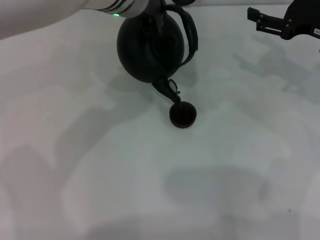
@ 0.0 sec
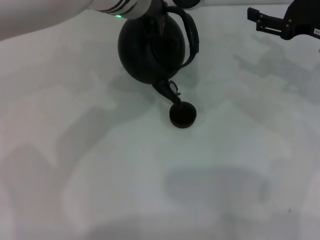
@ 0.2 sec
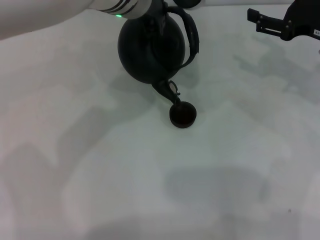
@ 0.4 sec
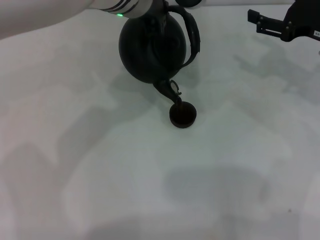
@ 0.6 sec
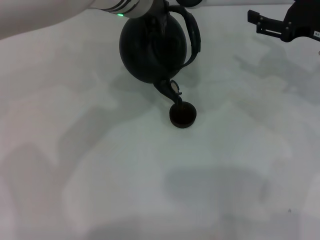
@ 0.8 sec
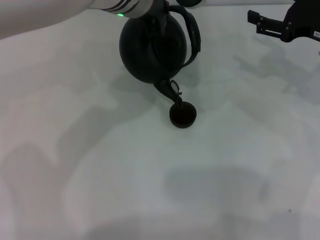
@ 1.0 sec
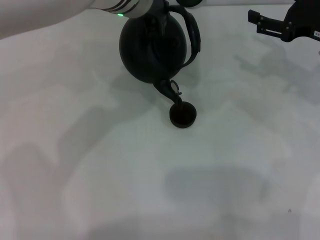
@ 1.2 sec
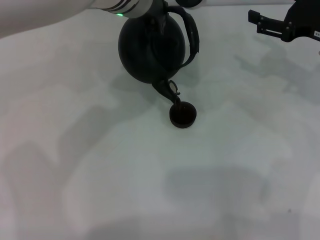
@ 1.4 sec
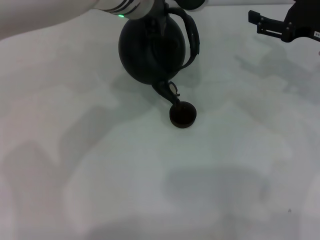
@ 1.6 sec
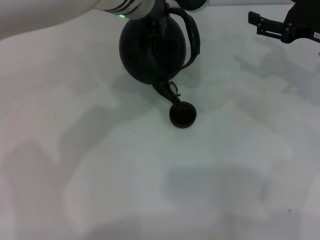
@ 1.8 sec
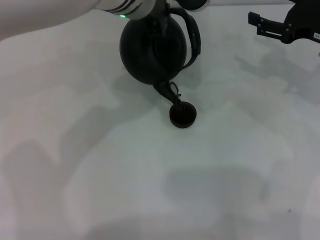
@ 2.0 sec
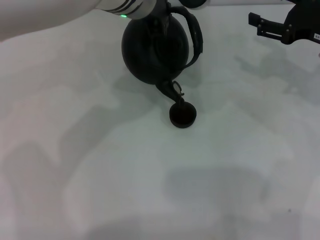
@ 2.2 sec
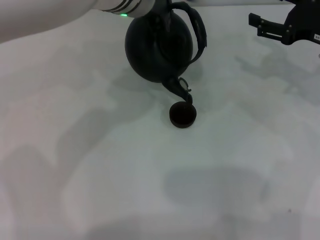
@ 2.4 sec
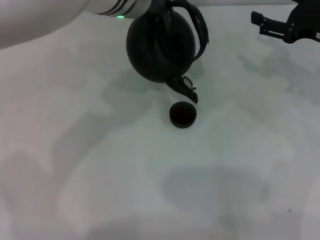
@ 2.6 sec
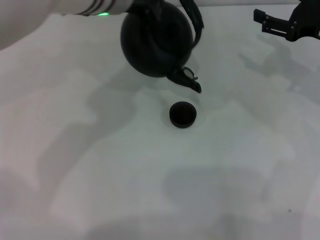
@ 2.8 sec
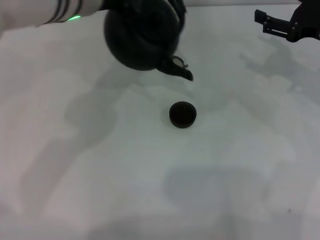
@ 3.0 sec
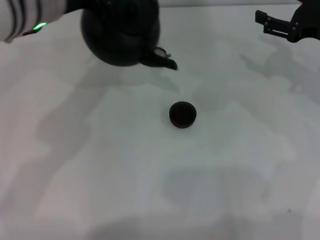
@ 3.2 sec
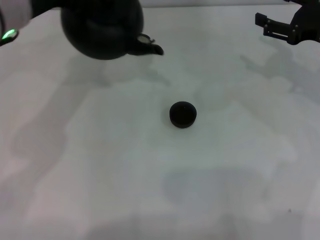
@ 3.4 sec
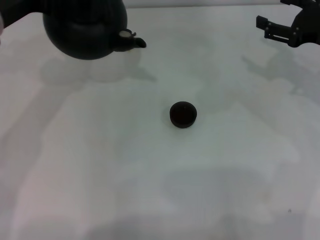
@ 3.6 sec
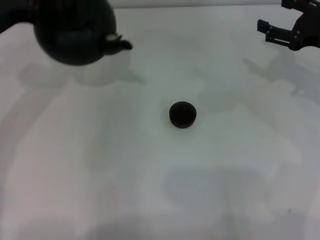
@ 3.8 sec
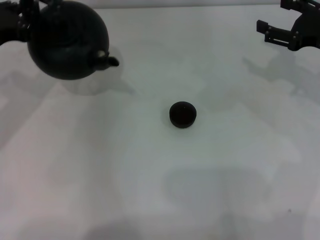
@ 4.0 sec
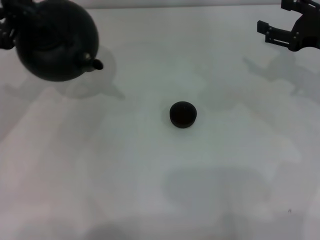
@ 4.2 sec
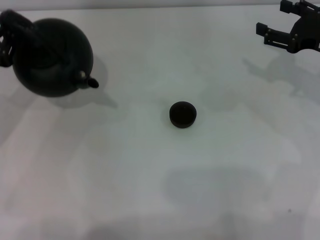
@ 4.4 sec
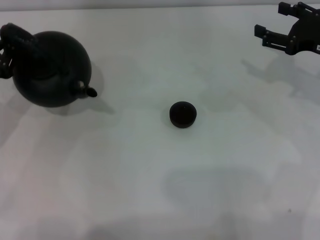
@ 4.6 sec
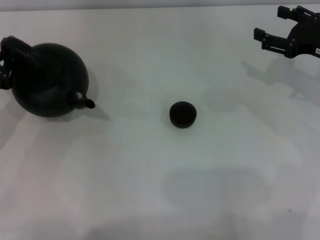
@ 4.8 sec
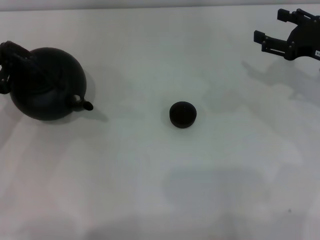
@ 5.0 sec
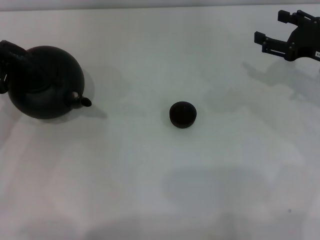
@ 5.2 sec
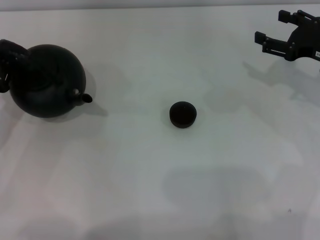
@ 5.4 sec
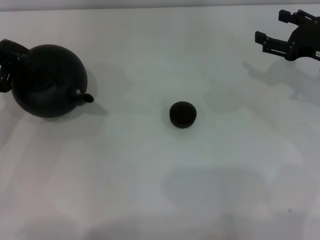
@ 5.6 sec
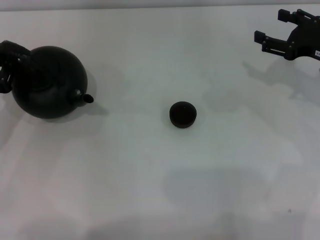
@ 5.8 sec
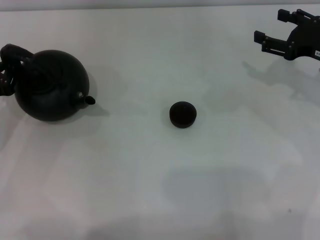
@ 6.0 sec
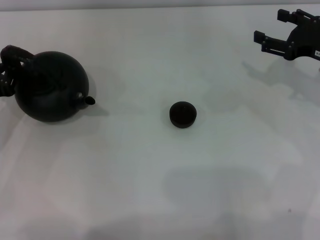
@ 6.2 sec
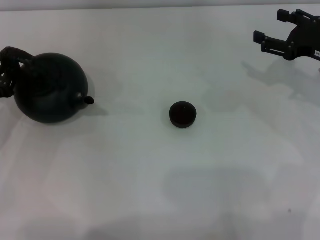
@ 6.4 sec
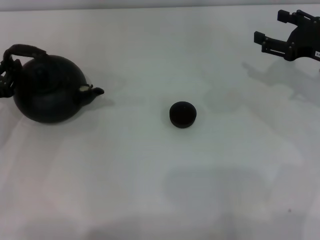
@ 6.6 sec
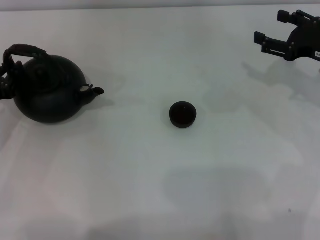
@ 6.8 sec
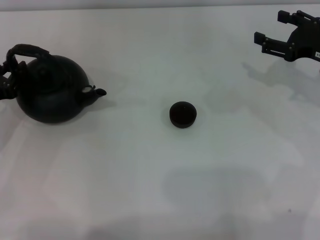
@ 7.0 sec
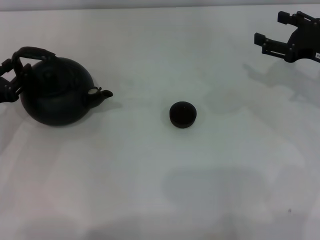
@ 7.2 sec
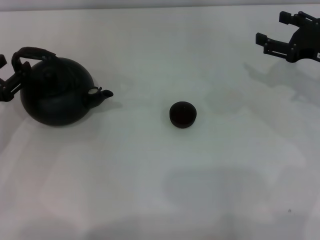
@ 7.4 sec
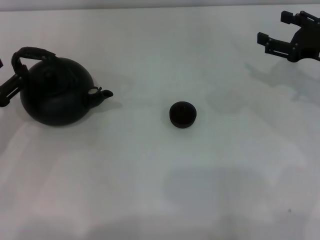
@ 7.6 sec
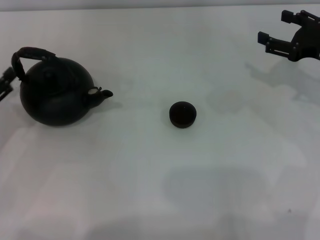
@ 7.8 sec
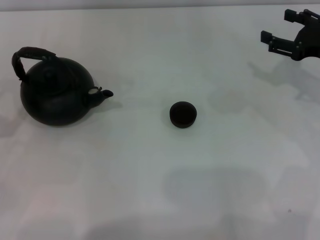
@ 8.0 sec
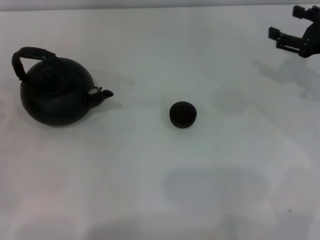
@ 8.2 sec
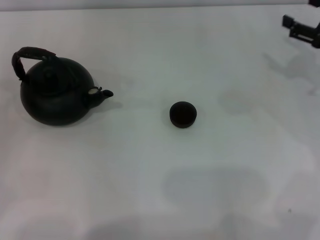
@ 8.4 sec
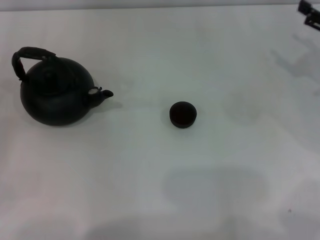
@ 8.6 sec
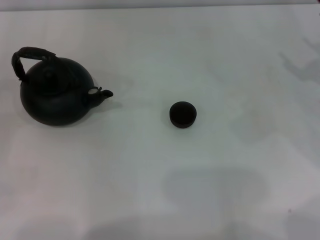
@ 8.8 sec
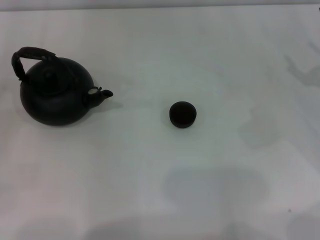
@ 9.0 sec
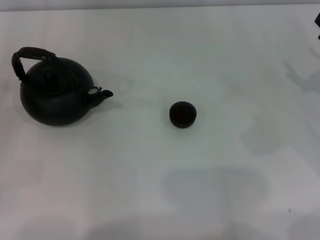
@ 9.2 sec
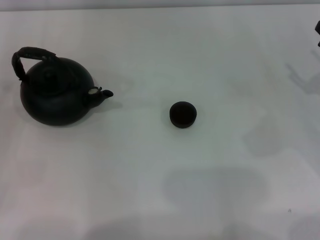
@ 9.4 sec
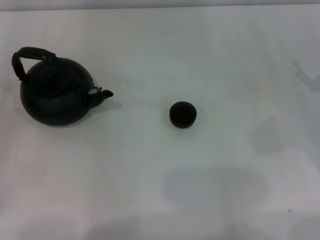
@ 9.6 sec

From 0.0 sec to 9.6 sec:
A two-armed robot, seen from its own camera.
Task of the whole recording: Grasp the handle of the teapot with one hand and pour tea into the teacup.
Step, from 0.0 sec to 3.0 sec: Pour tea into the teacup with the left gripper.
Step, from 3.2 sec to 8.0 sec: Put down the teapot with the left gripper.
From 0.0 sec to 1.6 sec: Neither gripper changes place.
From 1.6 sec to 3.2 sec: The left gripper heads to the left, covering about 10 cm.
From 3.2 sec to 4.8 sec: The left gripper is displaced to the left, downward and backward by some 25 cm.
From 4.8 sec to 6.4 sec: There are only small adjustments of the grippers.
From 6.4 sec to 8.0 sec: The left gripper travels backward by approximately 10 cm, and opens its fingers.
From 8.0 sec to 9.6 sec: The right gripper moves backward, about 5 cm.

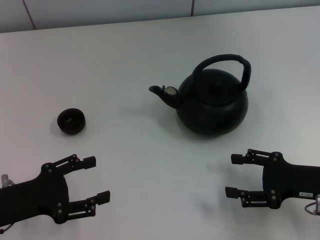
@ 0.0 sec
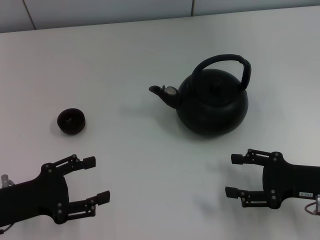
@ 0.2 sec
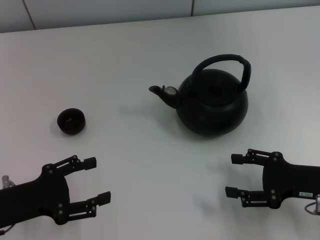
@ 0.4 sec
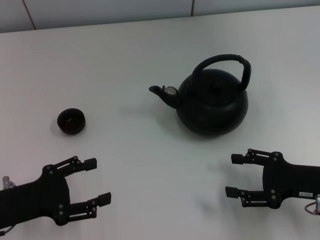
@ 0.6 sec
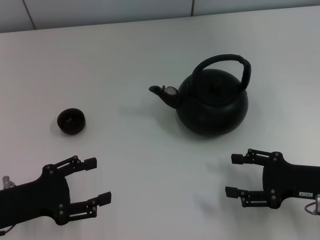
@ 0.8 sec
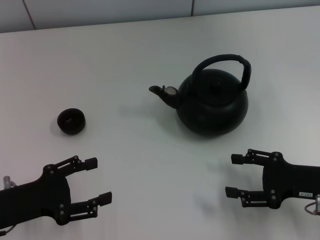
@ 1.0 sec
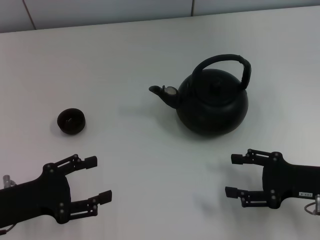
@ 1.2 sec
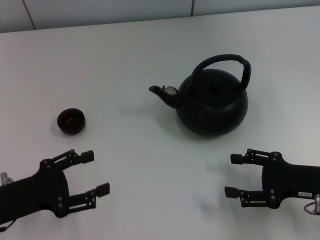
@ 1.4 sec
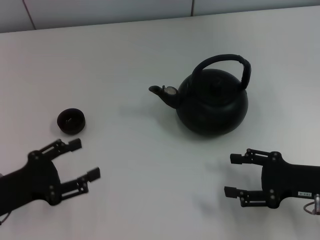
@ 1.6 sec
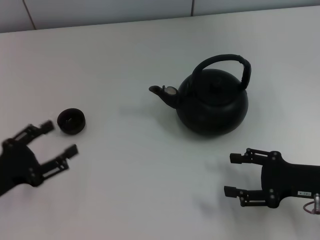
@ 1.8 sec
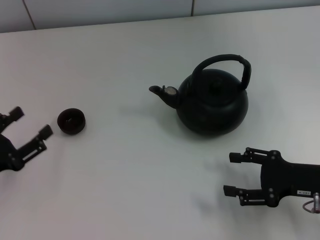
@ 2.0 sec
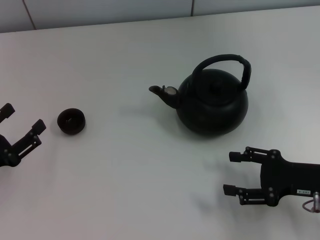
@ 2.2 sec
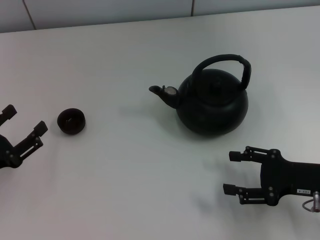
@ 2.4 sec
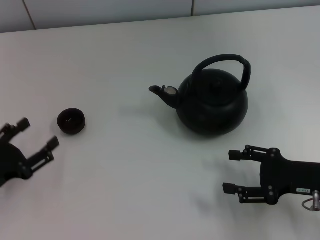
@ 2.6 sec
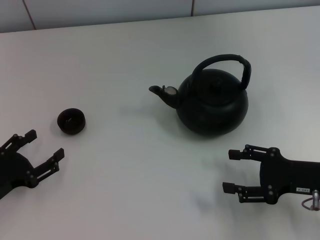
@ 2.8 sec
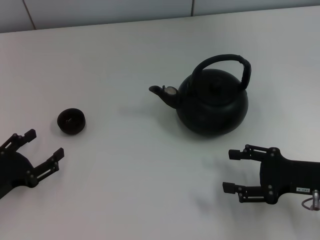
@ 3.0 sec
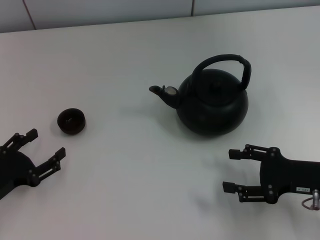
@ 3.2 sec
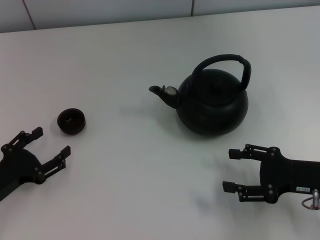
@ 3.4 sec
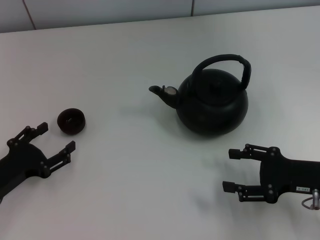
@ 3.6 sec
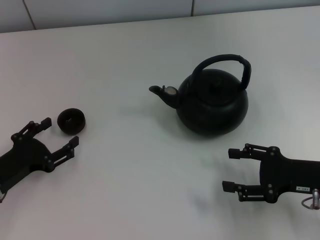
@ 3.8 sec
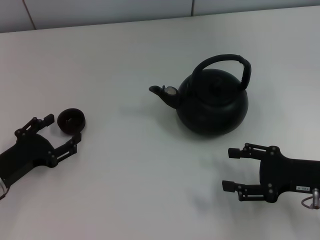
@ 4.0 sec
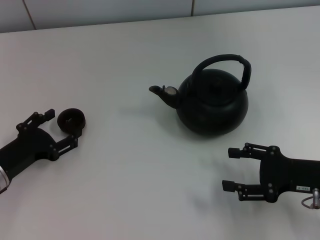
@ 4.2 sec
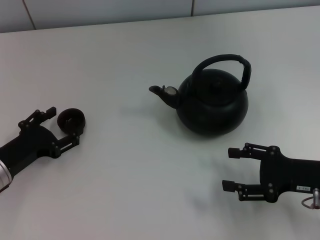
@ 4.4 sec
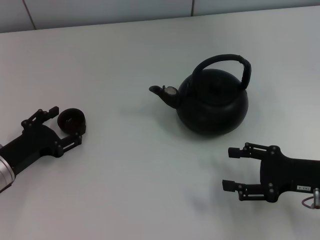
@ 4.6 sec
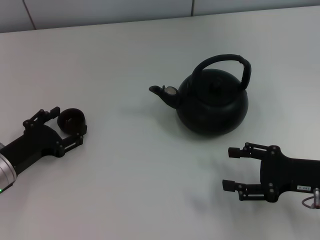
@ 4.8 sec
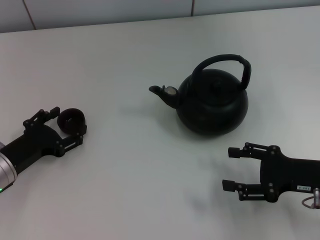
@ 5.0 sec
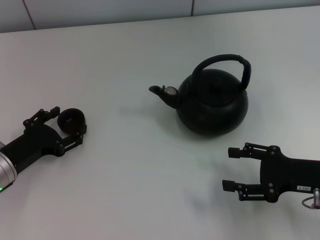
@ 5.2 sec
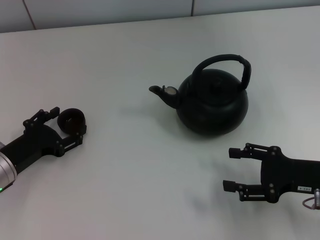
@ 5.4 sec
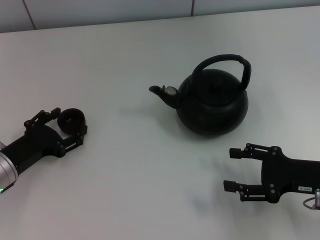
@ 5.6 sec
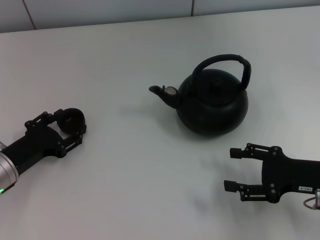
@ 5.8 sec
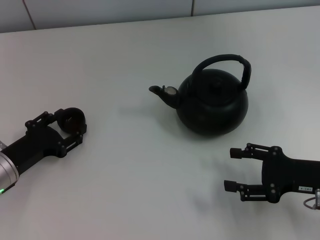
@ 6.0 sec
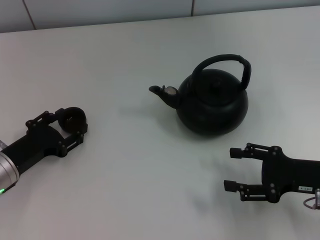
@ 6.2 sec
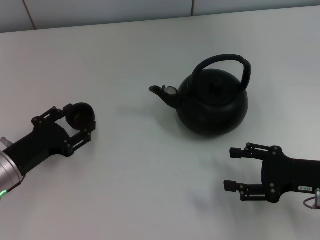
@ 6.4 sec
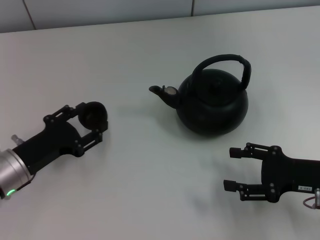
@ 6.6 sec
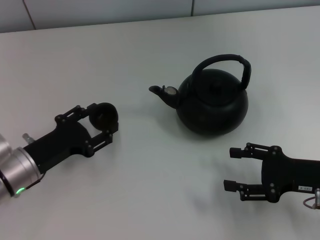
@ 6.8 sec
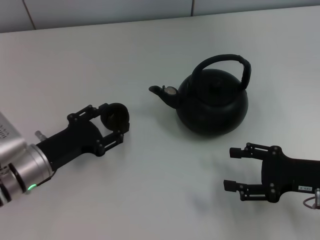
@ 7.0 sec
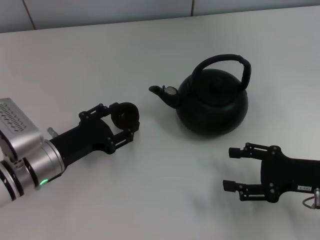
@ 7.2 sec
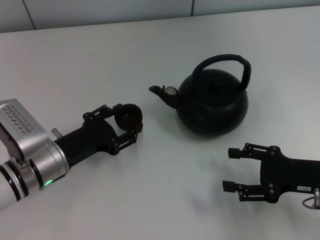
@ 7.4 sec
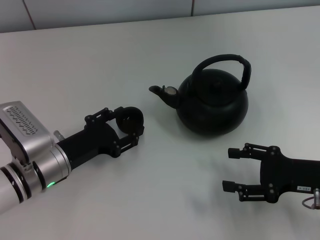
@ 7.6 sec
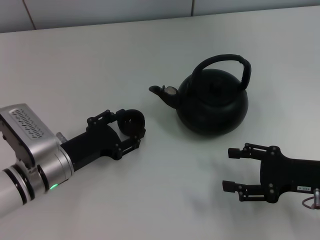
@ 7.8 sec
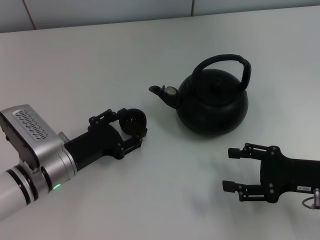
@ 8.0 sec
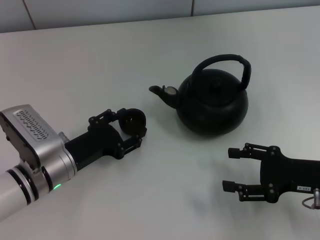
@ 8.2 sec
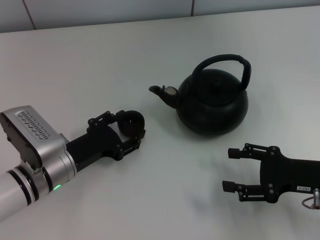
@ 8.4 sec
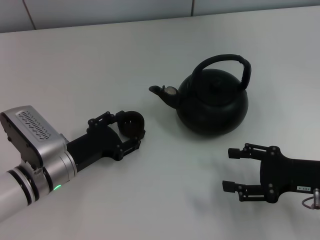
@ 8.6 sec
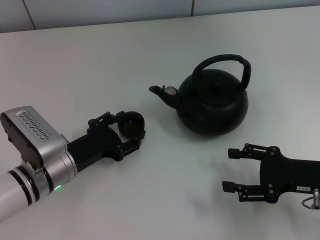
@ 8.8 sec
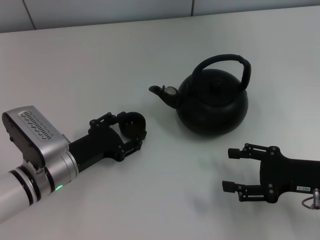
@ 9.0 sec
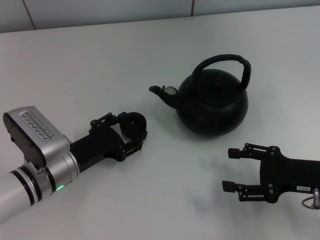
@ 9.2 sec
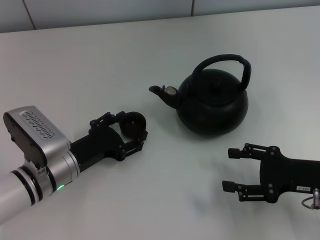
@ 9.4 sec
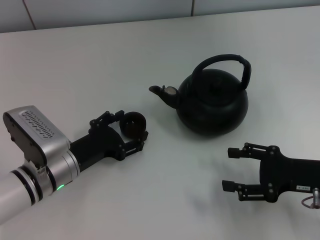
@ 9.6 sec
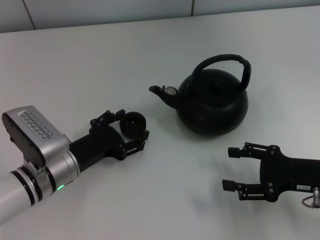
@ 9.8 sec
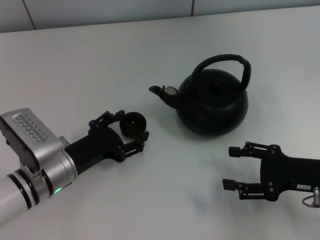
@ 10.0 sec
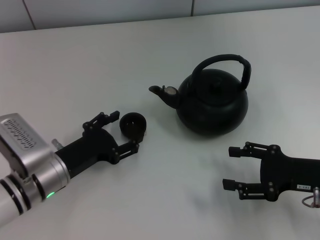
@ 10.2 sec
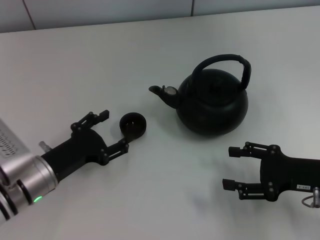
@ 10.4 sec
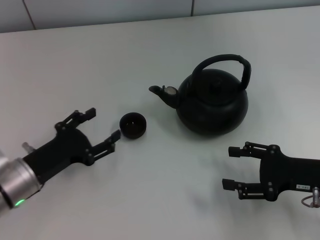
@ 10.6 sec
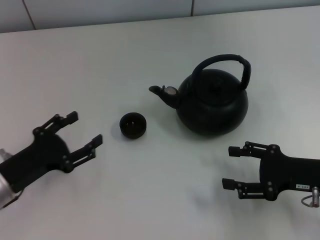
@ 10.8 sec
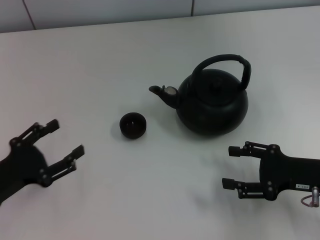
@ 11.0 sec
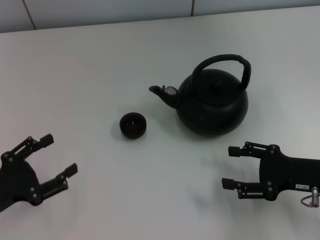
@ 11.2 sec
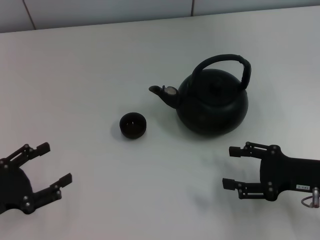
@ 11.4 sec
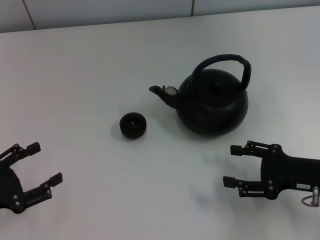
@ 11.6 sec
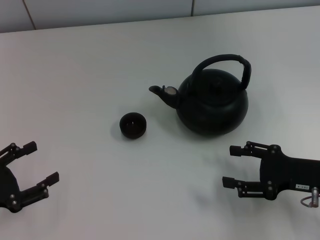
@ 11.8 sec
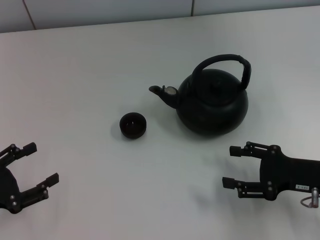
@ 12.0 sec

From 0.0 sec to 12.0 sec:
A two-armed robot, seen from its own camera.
Task of the whole recording: Grasp the handle of the teapot with one hand and pour tea into the teacup.
Step, from 0.0 sec to 6.4 sec: Pick up the teacup with the left gripper.
Step, from 6.6 sec to 10.4 sec: Place the teacup in the center of view with the left gripper.
From 0.0 sec to 1.6 sec: There are only small adjustments of the grippers.
From 3.0 sec to 4.4 sec: The left gripper goes about 5 cm forward.
From 4.4 sec to 6.0 sec: The left gripper closes its fingers.
From 6.0 sec to 7.6 sec: The left gripper is displaced to the right by some 10 cm.
From 7.6 sec to 9.0 sec: The left gripper opens.
From 9.0 sec to 10.4 sec: The grippers make only small movements.
From 10.4 sec to 12.0 sec: The left gripper shifts approximately 15 cm to the left and backward.
